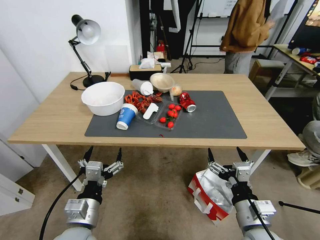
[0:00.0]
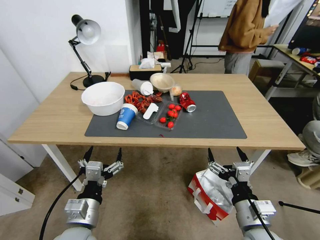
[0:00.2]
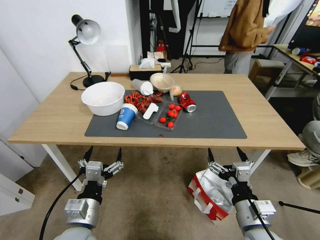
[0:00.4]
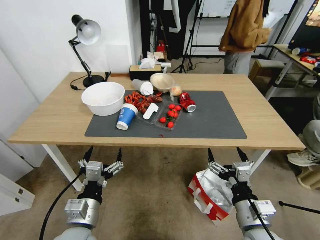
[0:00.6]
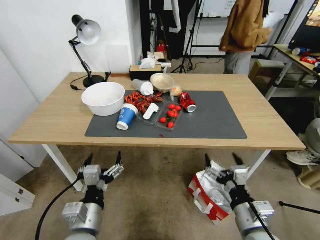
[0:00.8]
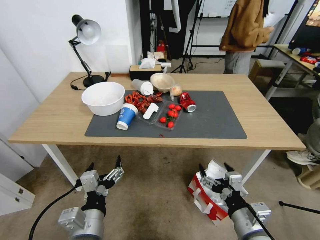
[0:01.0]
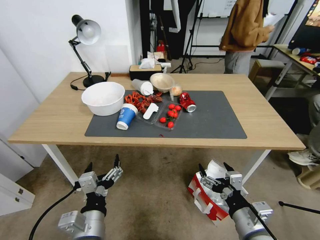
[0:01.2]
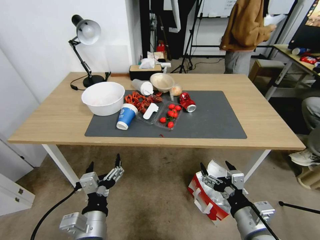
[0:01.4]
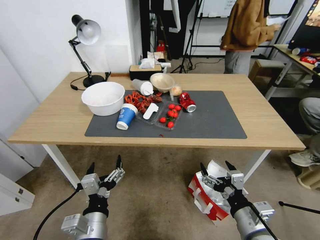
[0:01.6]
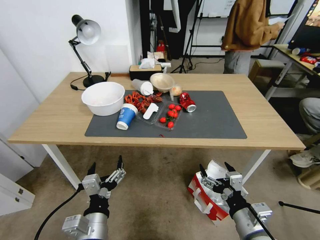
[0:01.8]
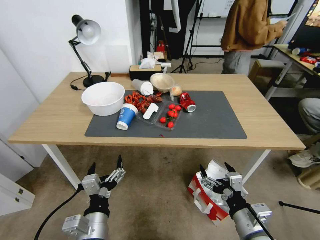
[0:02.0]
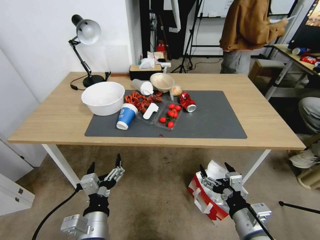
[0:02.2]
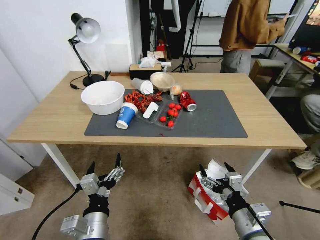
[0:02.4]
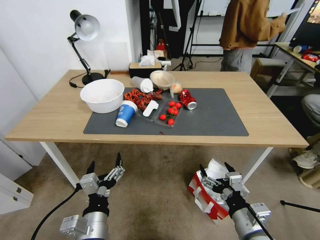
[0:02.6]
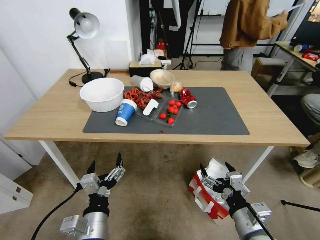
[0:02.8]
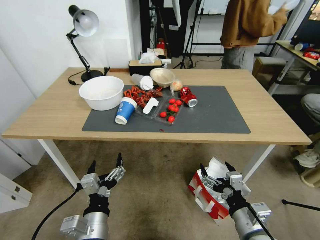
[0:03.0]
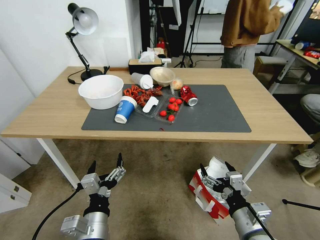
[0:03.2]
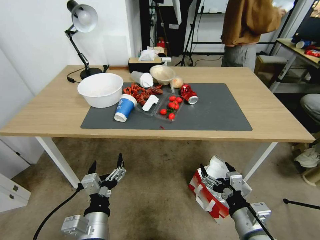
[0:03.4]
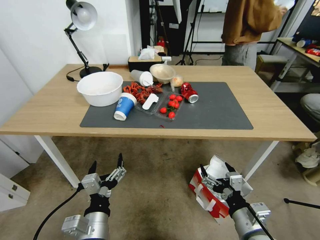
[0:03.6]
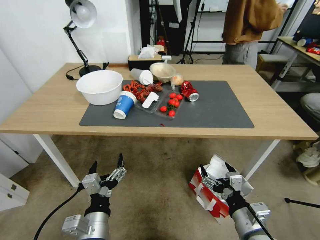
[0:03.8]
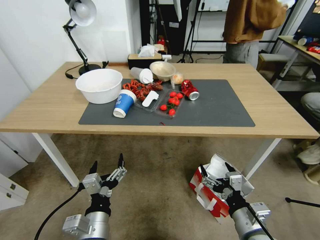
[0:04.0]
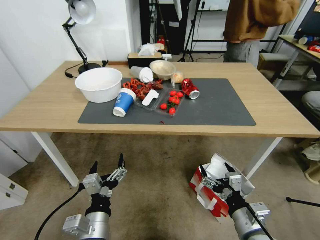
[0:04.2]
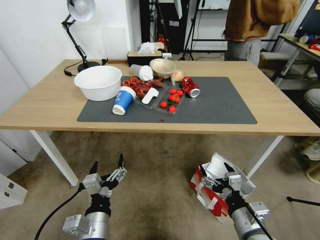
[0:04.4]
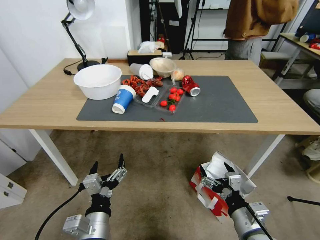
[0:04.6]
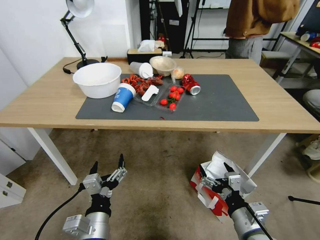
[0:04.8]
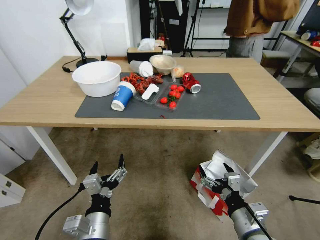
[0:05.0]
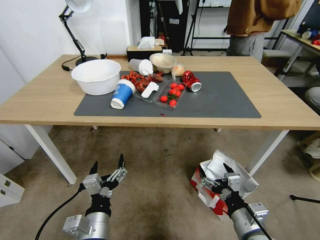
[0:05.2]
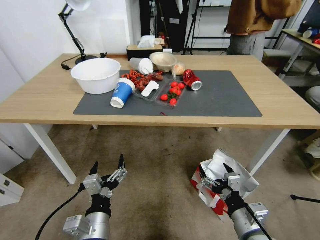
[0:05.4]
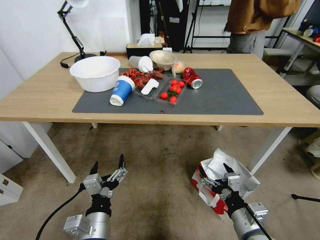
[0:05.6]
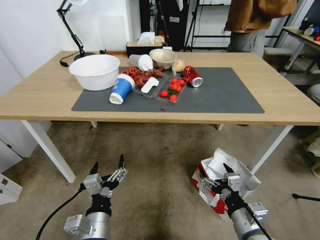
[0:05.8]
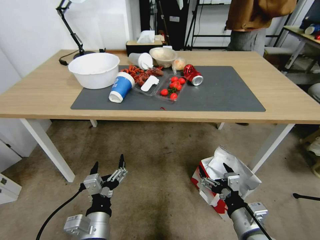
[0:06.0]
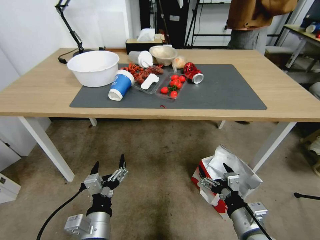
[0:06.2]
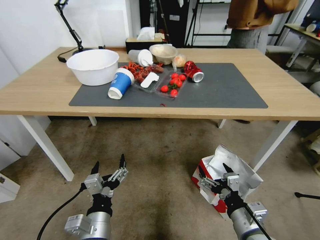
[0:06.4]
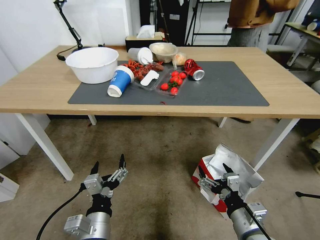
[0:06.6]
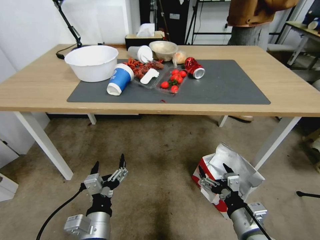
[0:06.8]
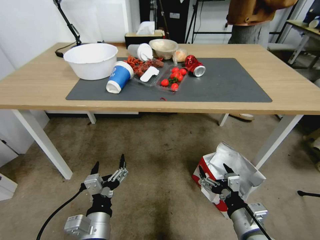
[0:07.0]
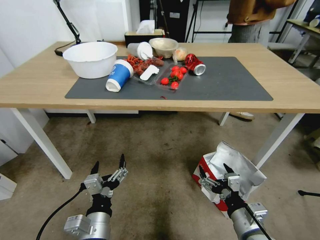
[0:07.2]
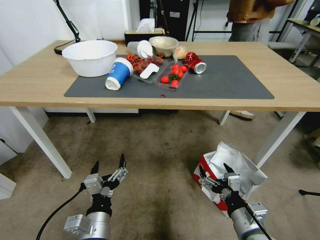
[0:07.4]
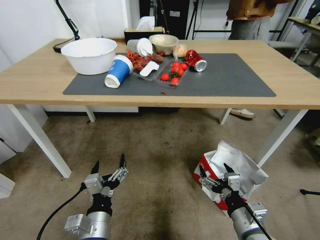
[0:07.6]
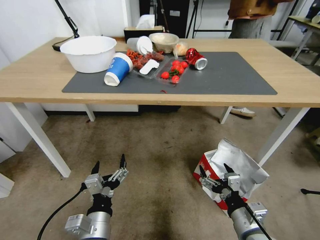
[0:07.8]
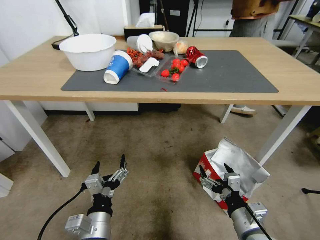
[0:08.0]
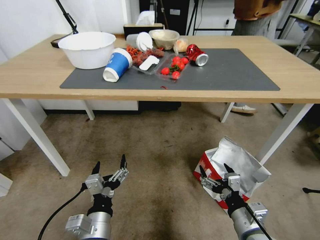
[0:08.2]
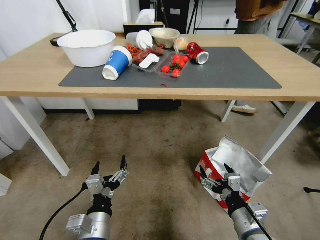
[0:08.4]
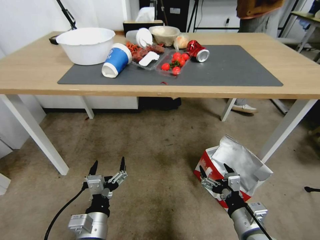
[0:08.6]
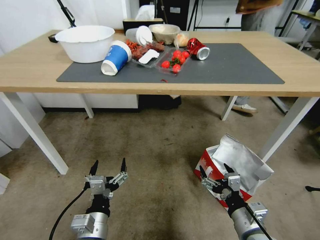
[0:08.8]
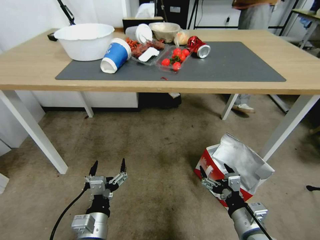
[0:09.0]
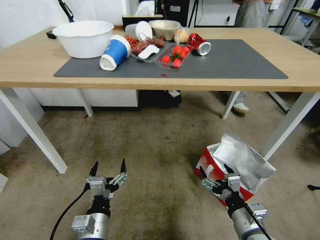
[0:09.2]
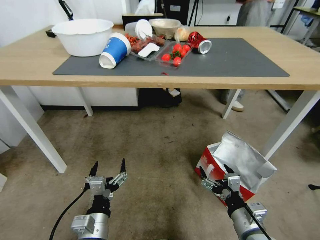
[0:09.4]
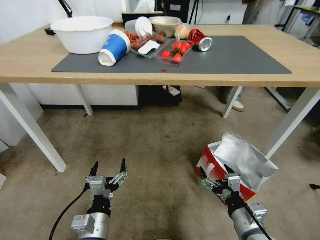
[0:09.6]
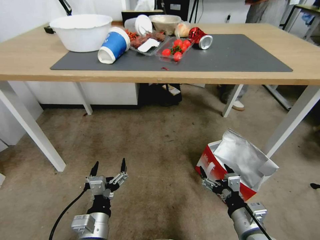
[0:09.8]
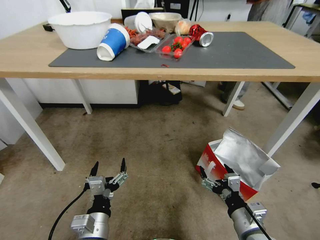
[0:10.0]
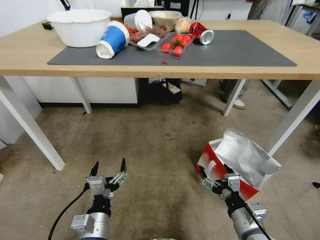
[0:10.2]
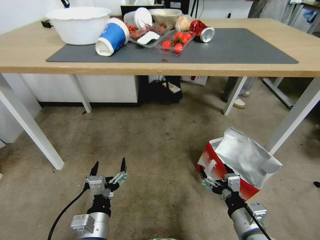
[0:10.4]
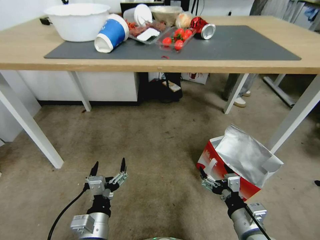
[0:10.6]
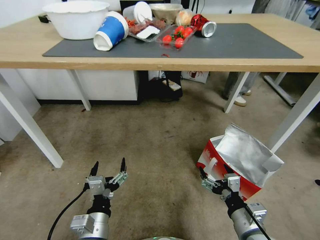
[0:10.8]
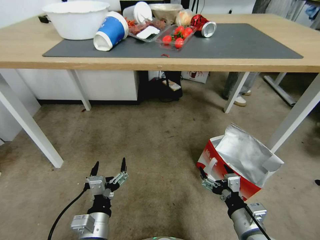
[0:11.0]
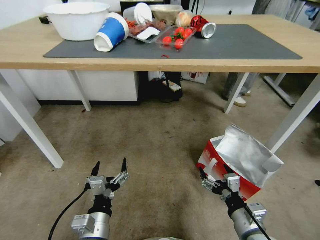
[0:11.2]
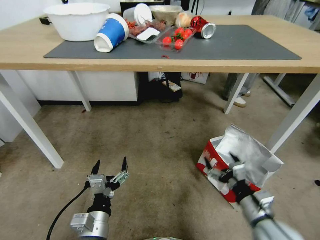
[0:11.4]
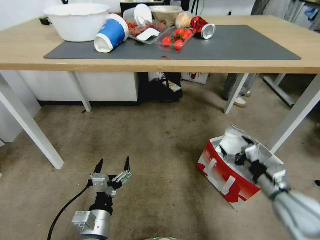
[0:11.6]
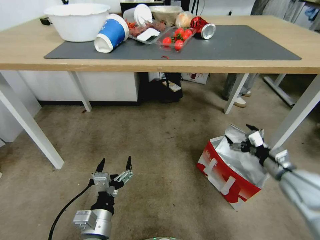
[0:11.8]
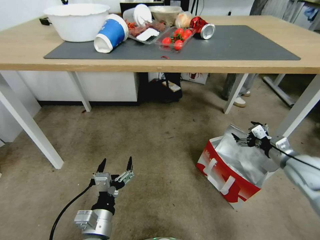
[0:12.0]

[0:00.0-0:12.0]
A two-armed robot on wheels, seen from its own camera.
Task of the whole recording: Pick up the food delivery bag from the floor and place it on the table.
0:10.4 to 0:12.0: The right gripper is displaced forward and to the right by some 25 cm.

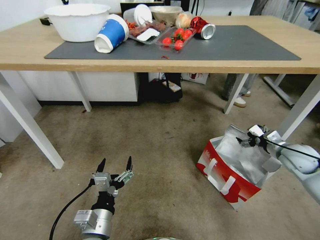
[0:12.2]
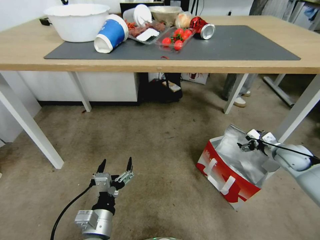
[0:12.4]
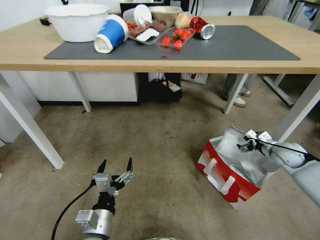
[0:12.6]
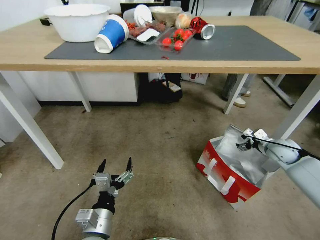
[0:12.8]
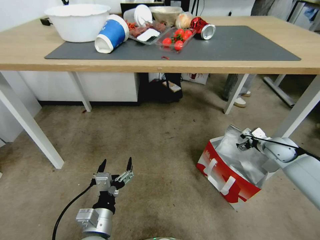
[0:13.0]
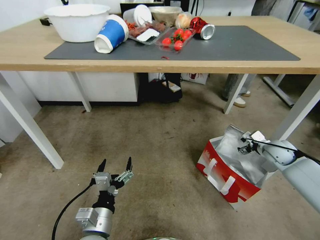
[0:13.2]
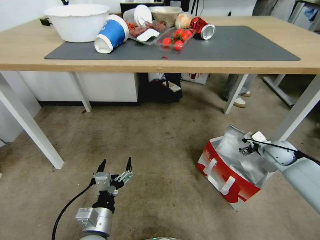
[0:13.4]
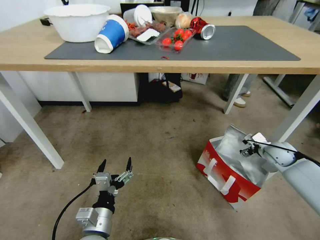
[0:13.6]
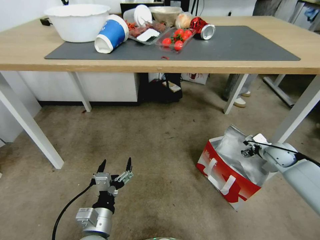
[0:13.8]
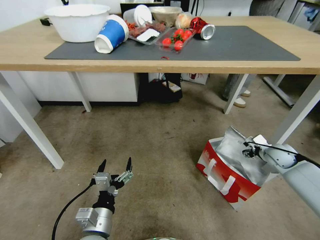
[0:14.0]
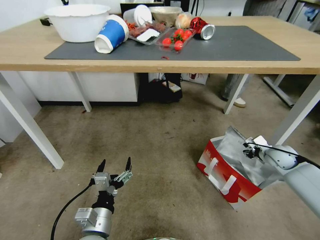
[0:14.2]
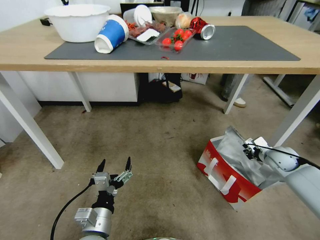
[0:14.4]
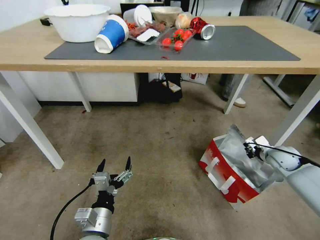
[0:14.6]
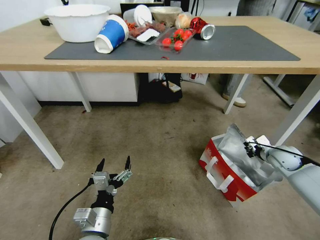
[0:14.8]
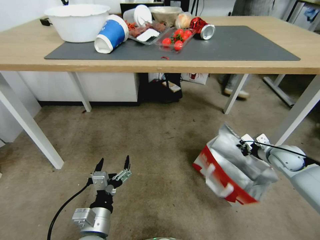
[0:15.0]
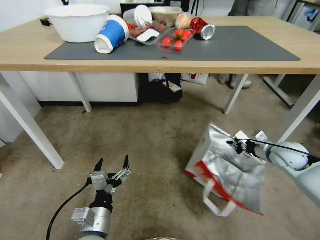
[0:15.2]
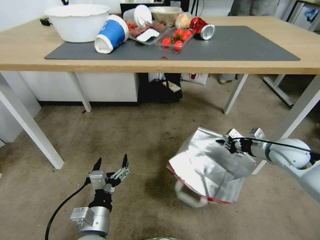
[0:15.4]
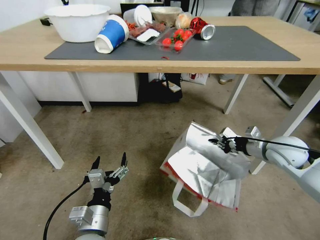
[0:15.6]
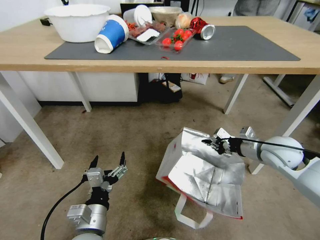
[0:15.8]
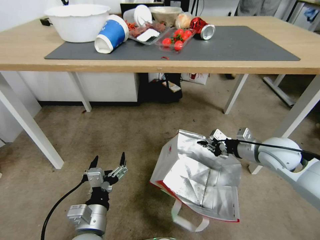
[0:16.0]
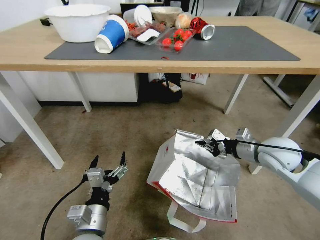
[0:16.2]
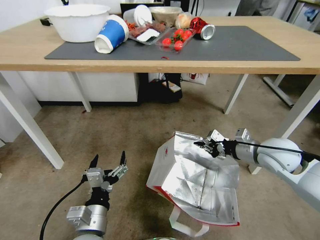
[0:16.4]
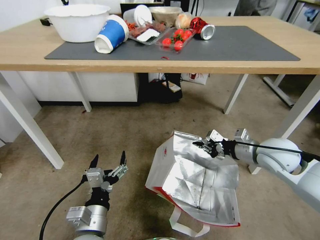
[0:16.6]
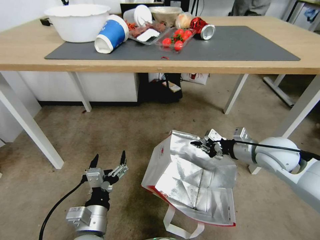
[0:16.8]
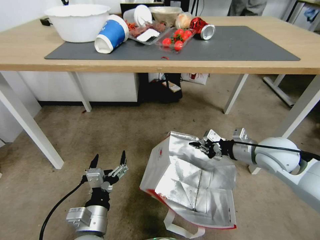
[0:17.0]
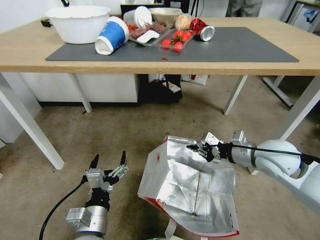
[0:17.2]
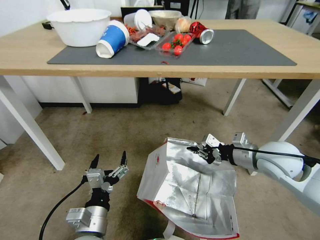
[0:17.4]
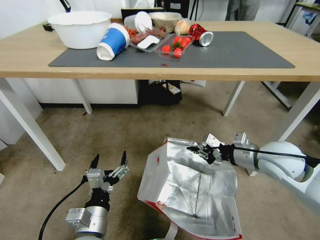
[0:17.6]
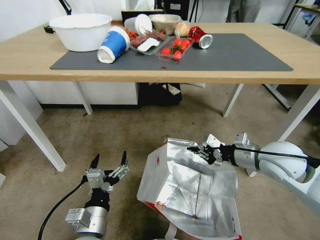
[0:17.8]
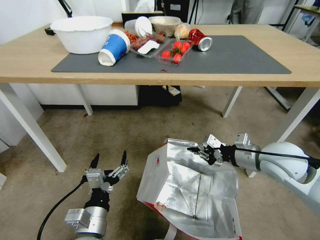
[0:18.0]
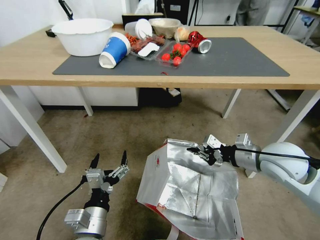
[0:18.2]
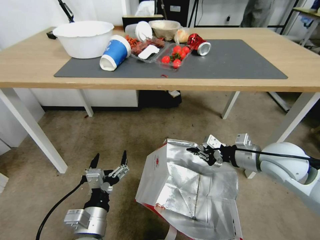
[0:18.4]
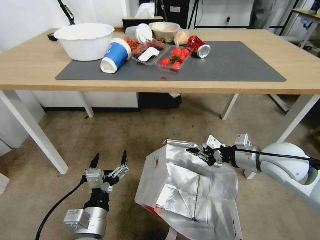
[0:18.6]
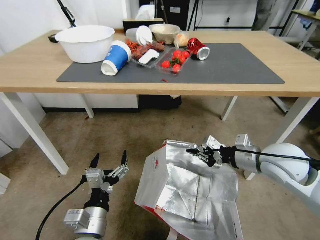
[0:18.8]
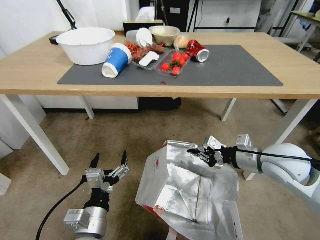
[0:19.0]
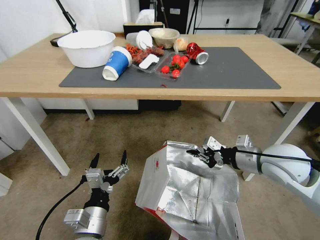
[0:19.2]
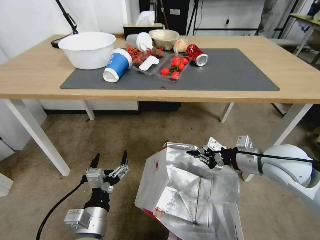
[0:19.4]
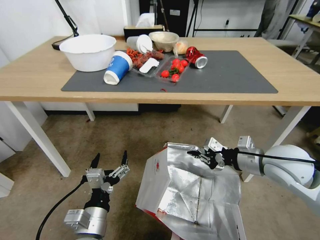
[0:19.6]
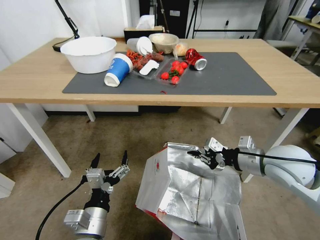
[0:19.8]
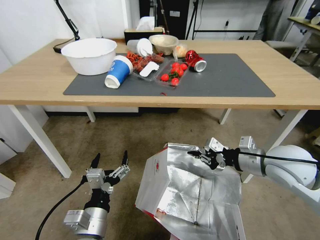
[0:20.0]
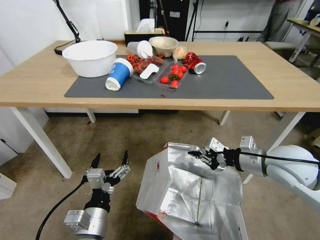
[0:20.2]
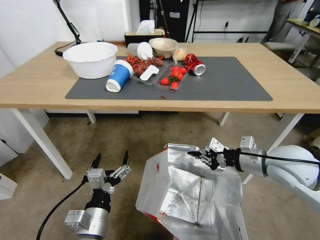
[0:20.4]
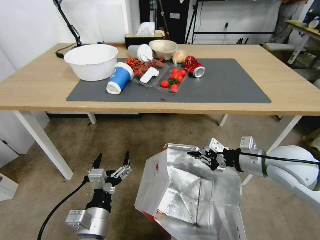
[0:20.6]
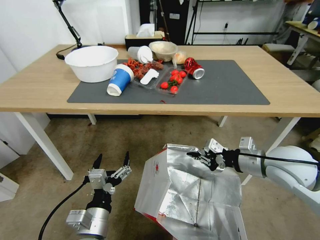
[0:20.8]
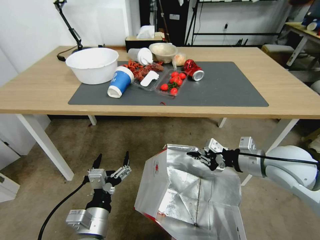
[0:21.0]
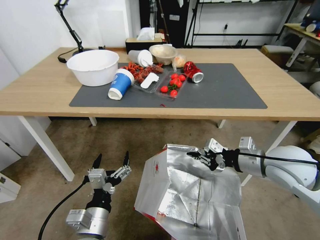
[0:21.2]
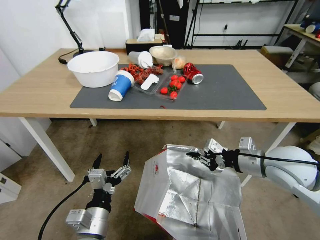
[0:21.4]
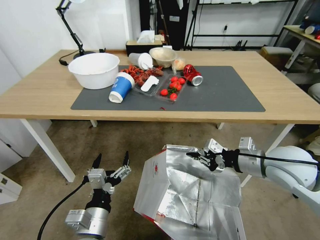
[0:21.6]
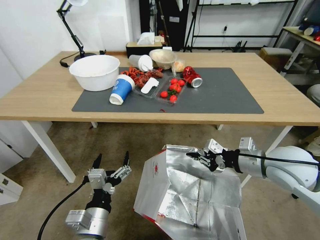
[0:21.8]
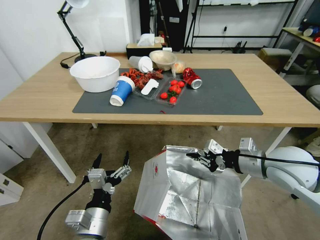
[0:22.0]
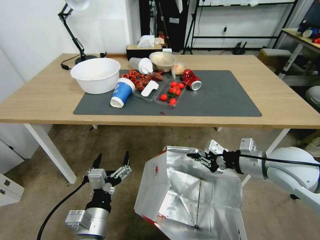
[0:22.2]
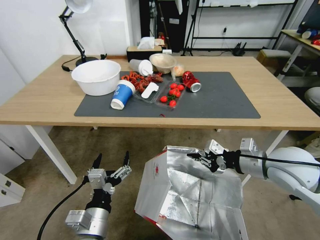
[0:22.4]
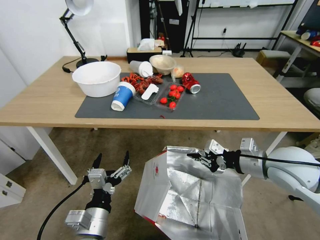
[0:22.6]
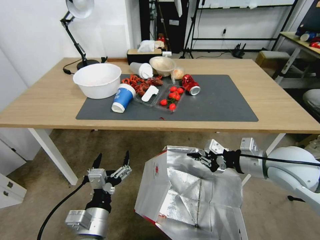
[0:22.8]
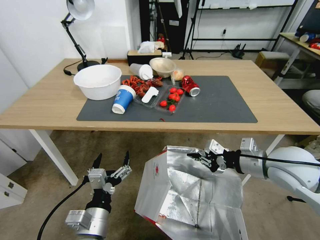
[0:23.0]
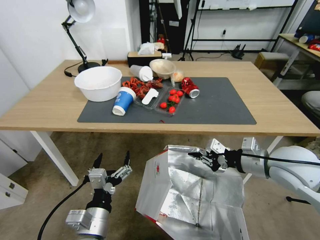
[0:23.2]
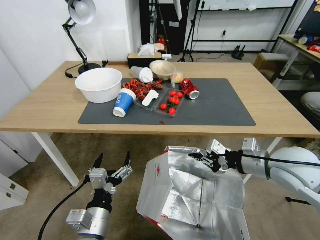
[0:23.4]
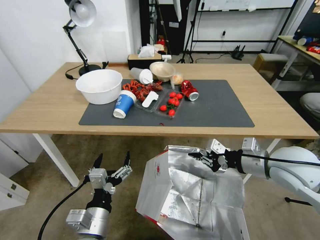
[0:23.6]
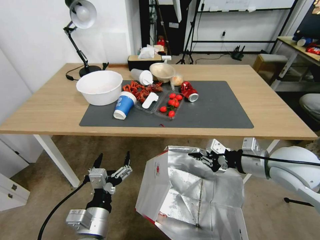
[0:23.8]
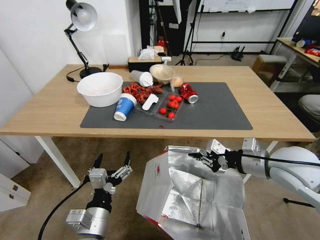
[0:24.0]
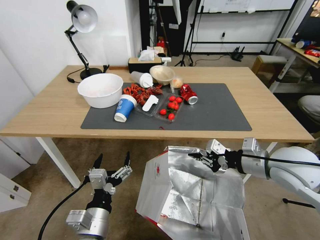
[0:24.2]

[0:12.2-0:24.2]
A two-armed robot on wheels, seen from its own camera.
Task of the whole recording: Pick up the food delivery bag from the floor and place it on the table.
0:12.2 to 0:13.8: The right gripper shifts about 5 cm downward.
0:13.8 to 0:15.2: The right gripper changes place by roughly 5 cm, and closes its fingers.
0:15.2 to 0:16.6: The right gripper travels to the left and upward by about 15 cm.
